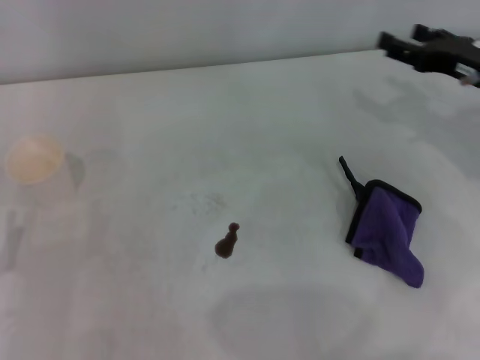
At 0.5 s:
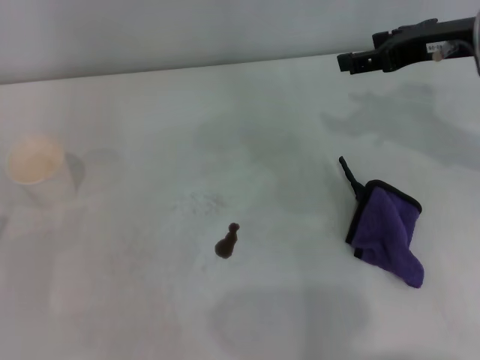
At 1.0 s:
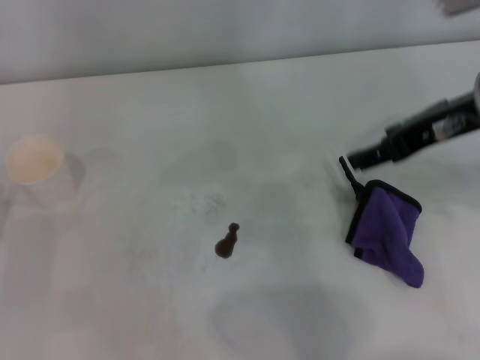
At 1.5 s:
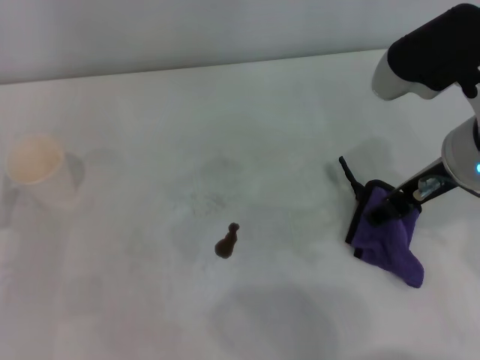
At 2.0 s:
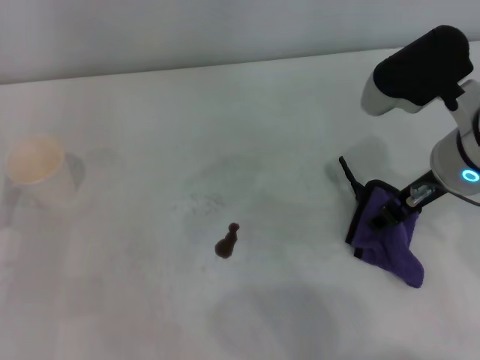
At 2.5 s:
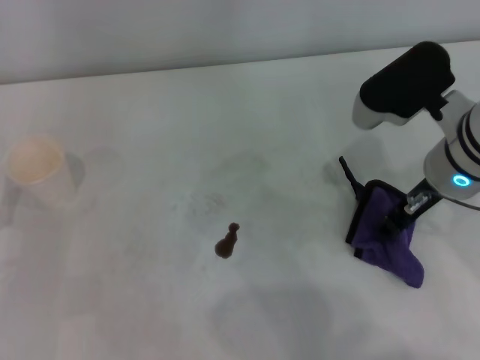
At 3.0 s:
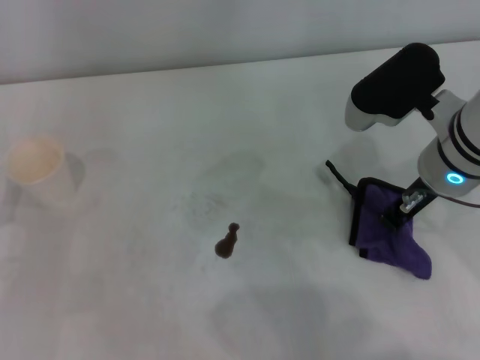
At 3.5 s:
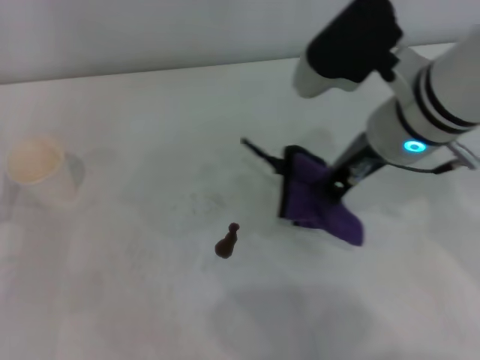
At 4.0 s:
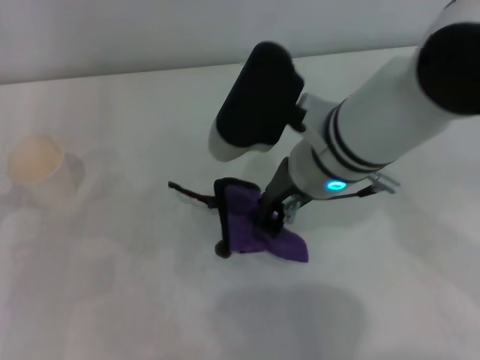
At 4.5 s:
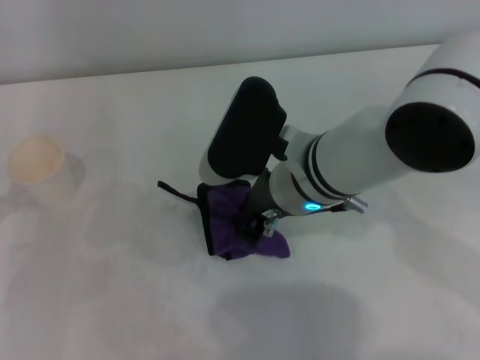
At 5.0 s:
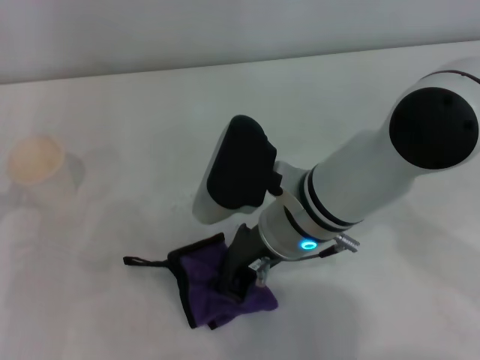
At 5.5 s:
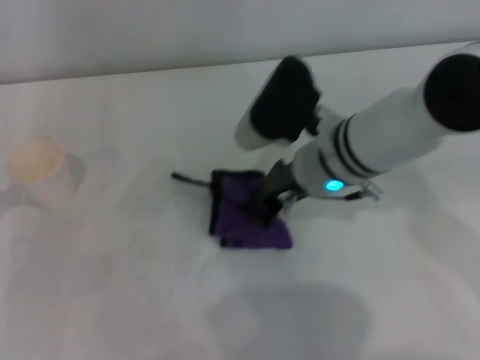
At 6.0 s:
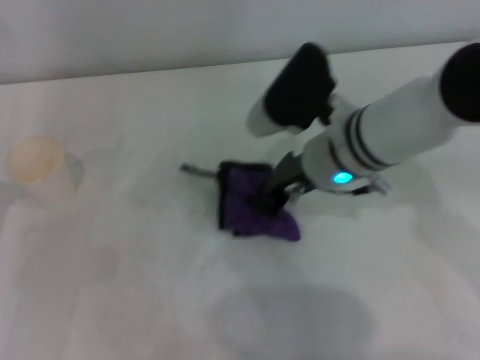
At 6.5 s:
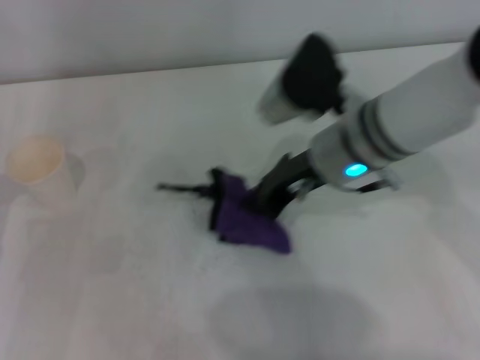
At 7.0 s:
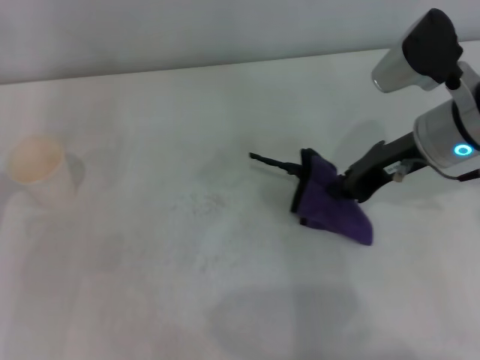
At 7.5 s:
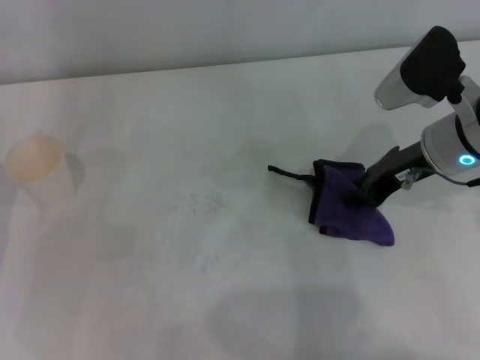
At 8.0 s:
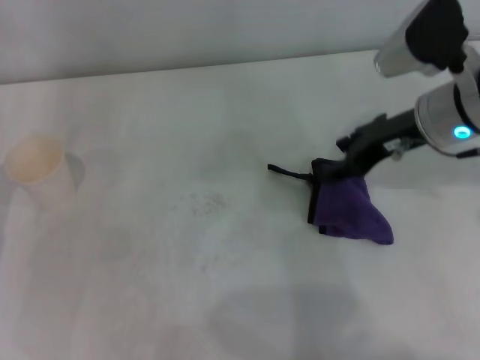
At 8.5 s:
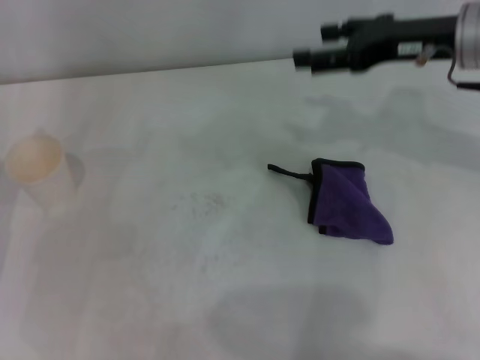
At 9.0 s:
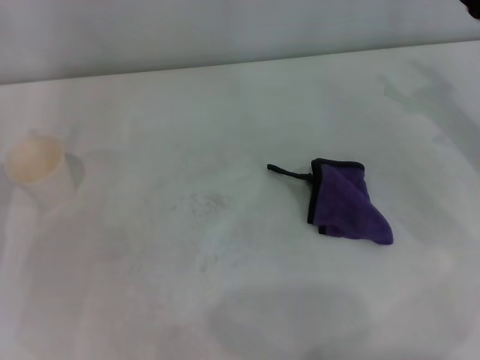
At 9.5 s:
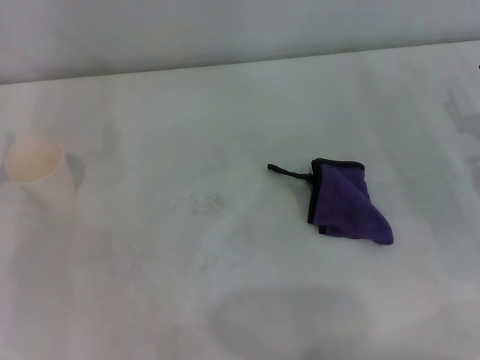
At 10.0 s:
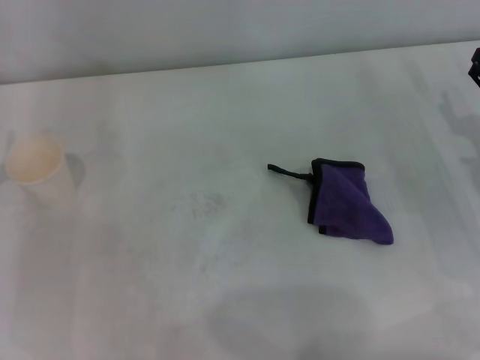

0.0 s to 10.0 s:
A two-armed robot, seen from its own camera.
Step, 0.0 to 2.5 s: Grasp the rag with the right gripper.
Step, 3.0 to 6.0 s: Wipe the stains off the table with the right gripper.
Step, 6.5 to 7.5 s: Place the rag on the table with the right gripper.
0.0 to 2.0 s: The right gripper heads to the left, backward and upward, covering about 15 cm.
2.0 to 4.0 s: The right gripper travels to the left by approximately 10 cm, and closes up.
4.0 to 6.0 s: The right gripper is displaced downward by roughly 5 cm.
6.0 to 8.0 s: The right gripper goes roughly 10 cm to the right, and opens.
8.0 to 10.0 s: The right gripper travels to the right, downward and backward by some 15 cm, and opens up.
